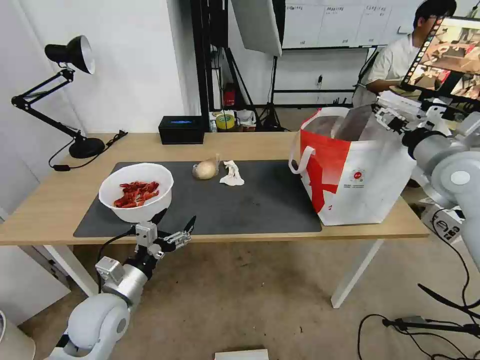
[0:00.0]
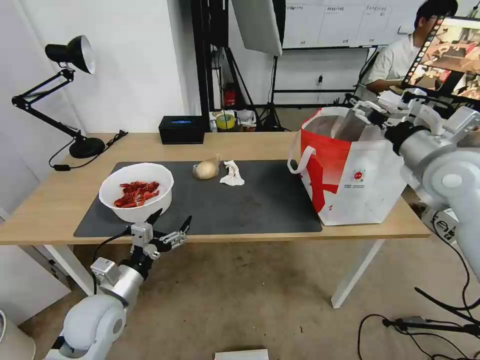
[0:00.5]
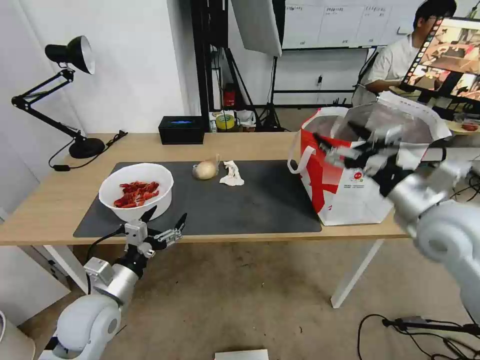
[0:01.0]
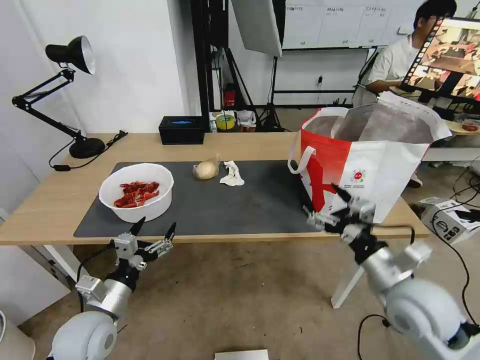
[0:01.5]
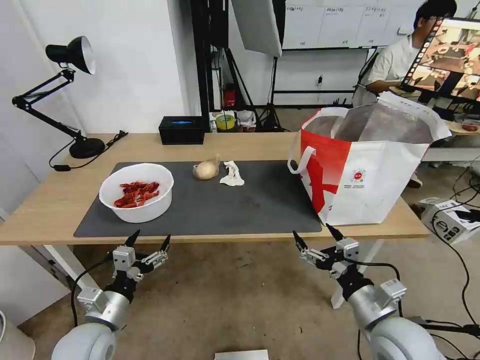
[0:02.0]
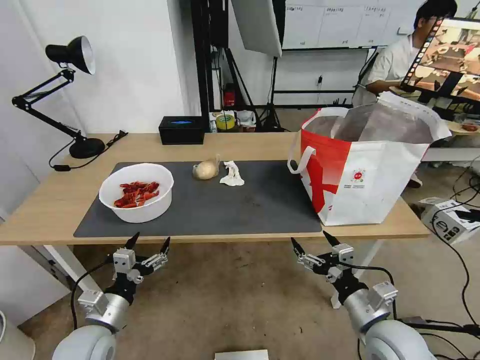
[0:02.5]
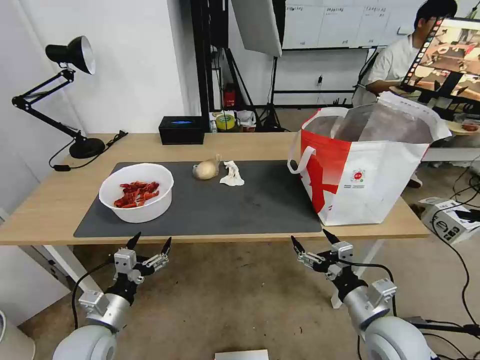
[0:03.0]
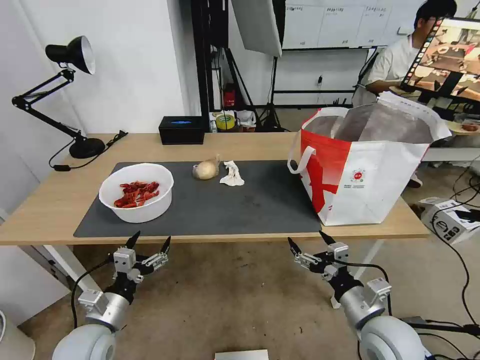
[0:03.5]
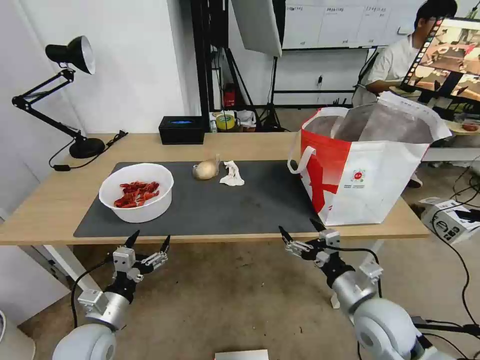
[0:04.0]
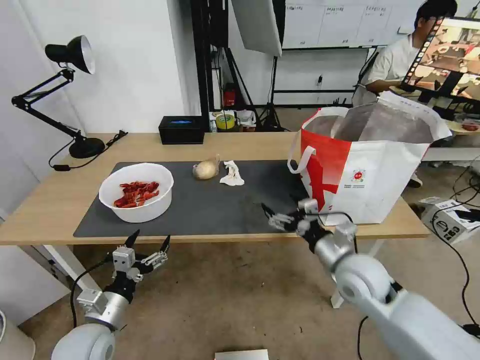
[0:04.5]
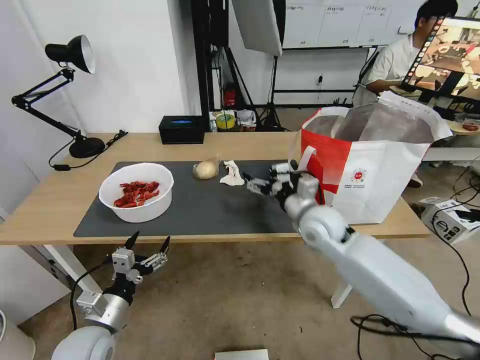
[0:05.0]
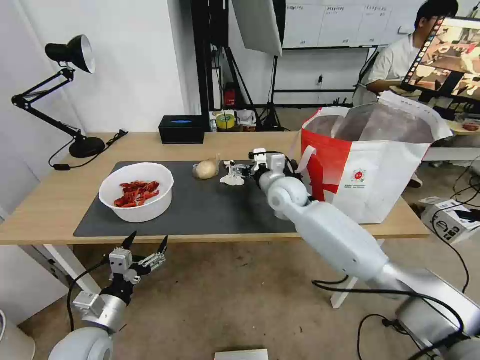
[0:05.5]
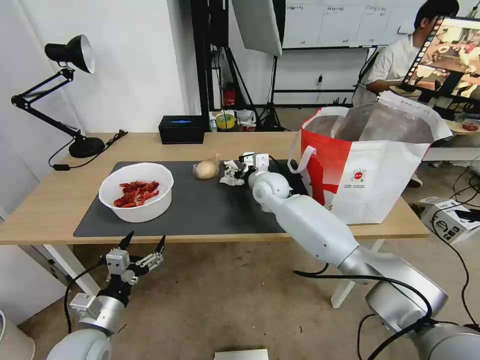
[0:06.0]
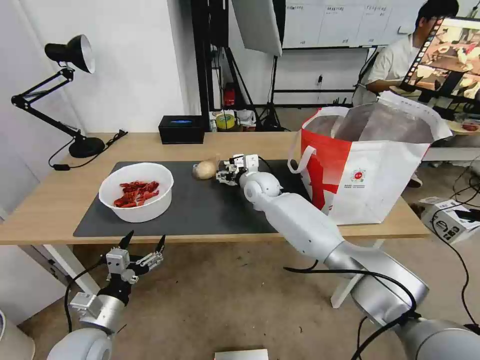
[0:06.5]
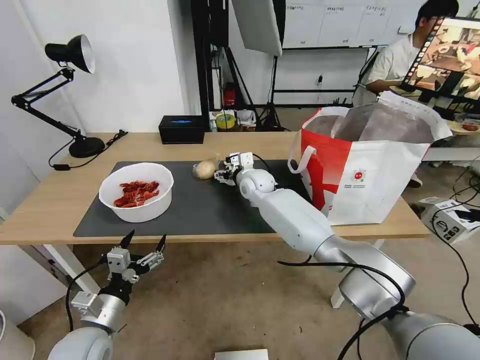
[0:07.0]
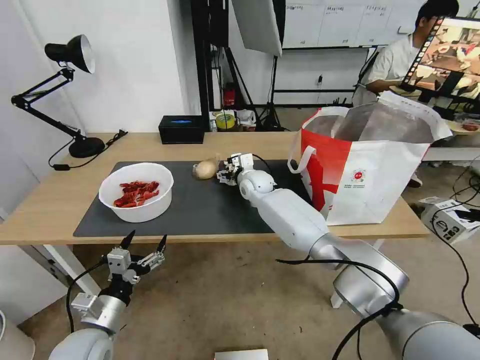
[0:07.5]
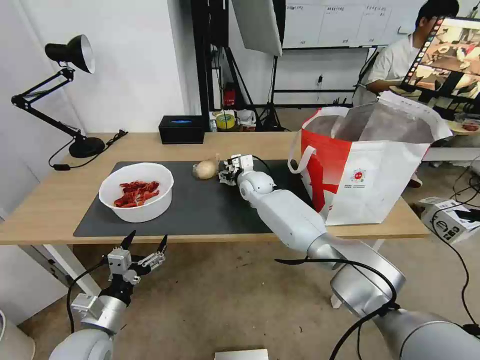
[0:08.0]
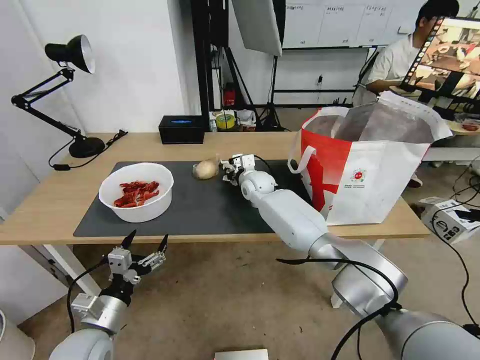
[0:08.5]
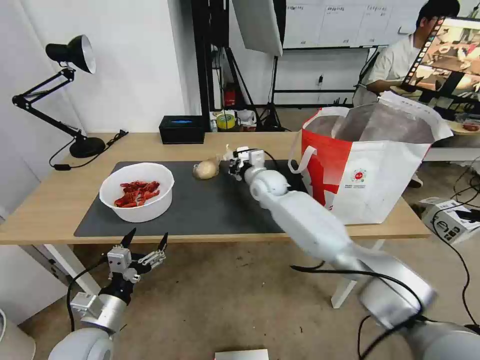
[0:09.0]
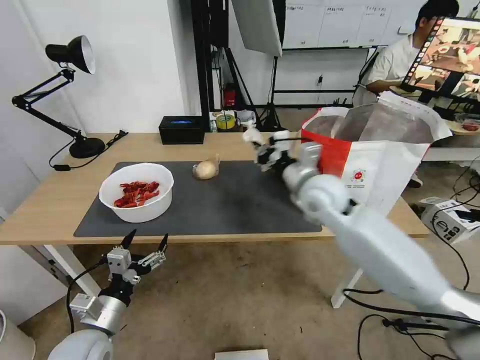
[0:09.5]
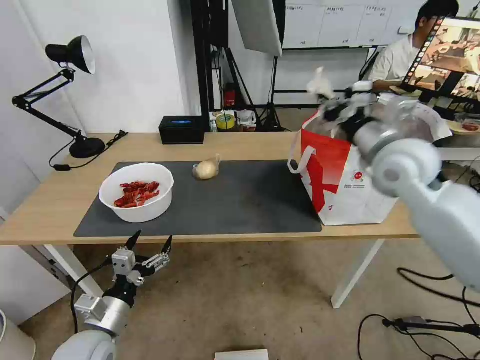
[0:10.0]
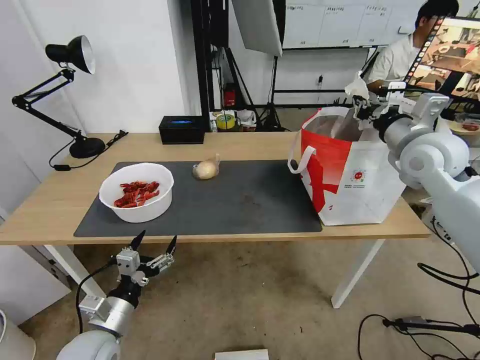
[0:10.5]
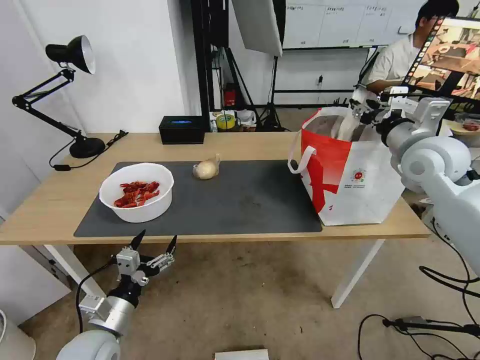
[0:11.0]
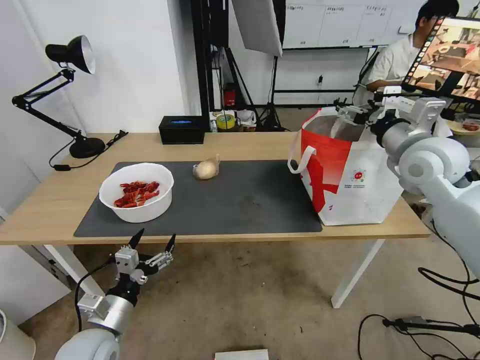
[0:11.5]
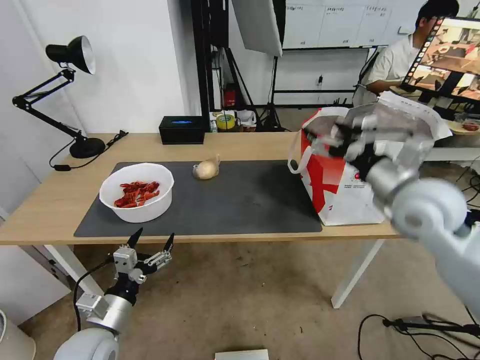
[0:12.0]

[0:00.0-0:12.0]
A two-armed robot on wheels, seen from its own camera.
Task of the whole recording: Pick up the trash from the table and place it into the takeout bag.
0:00.0 to 0:02.0: The right gripper travels downward, backward and to the left by roughly 35 cm. The left gripper changes place by approximately 5 cm.
0:02.0 to 0:04.0: The grippers make only small movements.
0:04.0 to 0:06.0: The right gripper heads forward and to the left, covering about 40 cm.
0:06.0 to 0:08.0: The right gripper changes place by some 5 cm.
0:08.0 to 0:10.0: The right gripper moves to the right, upward and backward, about 35 cm, and closes.
0:10.0 to 0:12.0: The right gripper is displaced backward by some 5 cm, and opens.

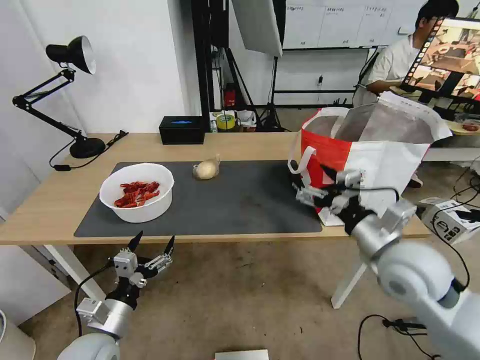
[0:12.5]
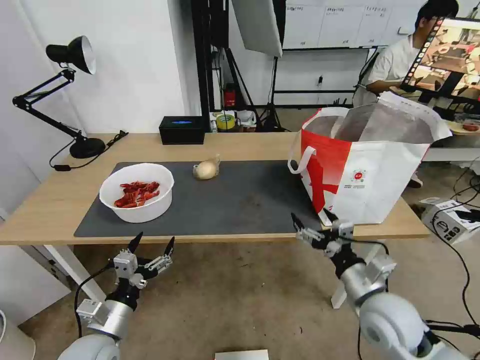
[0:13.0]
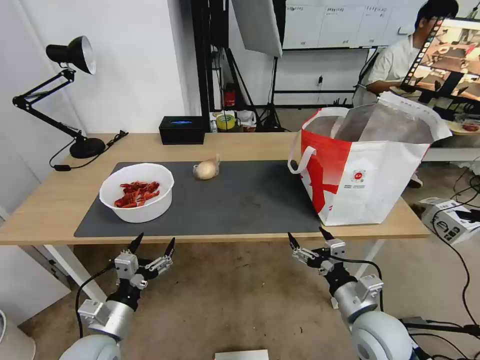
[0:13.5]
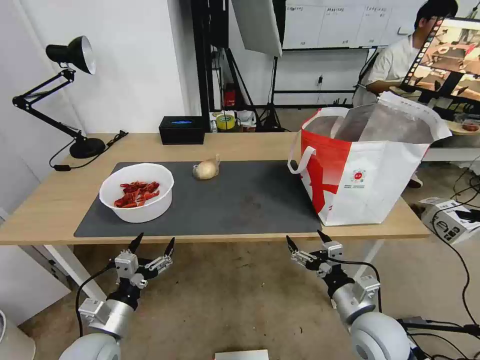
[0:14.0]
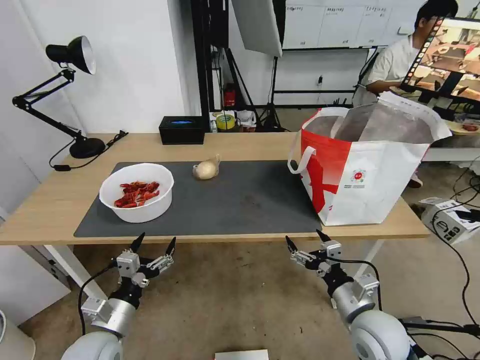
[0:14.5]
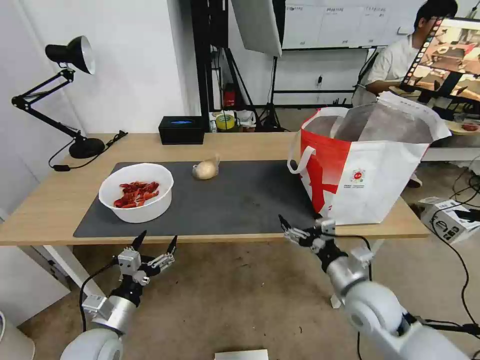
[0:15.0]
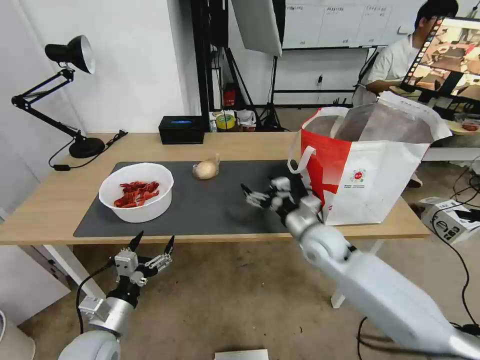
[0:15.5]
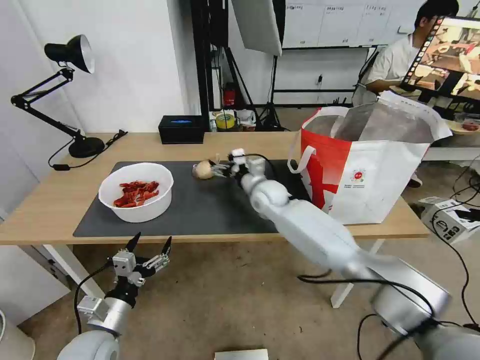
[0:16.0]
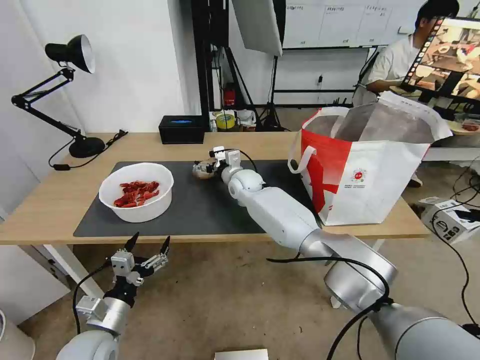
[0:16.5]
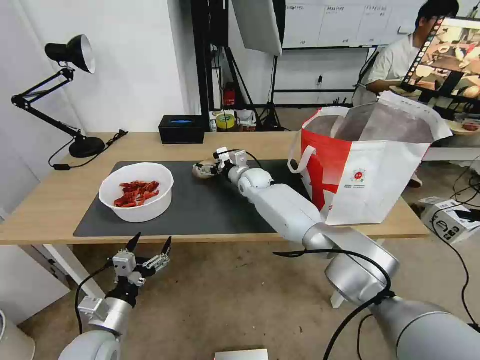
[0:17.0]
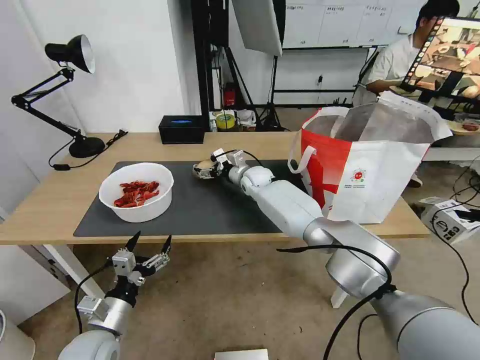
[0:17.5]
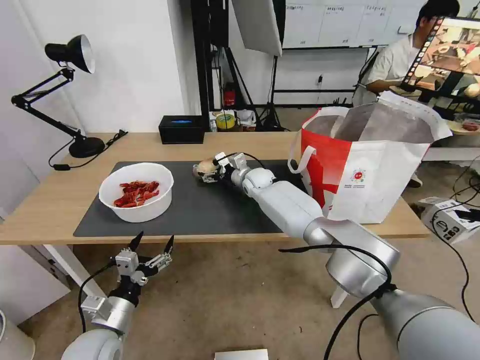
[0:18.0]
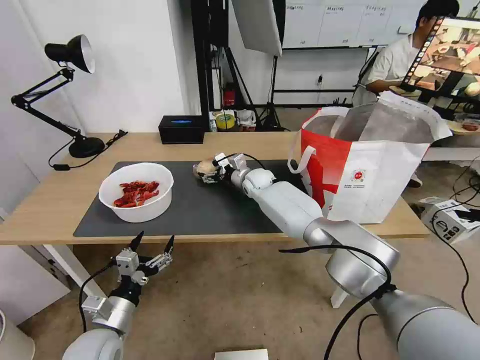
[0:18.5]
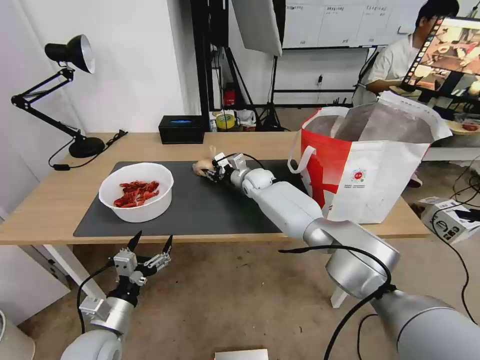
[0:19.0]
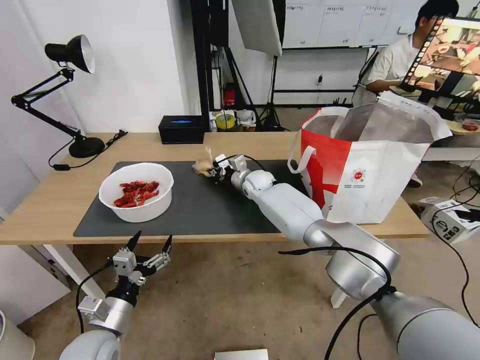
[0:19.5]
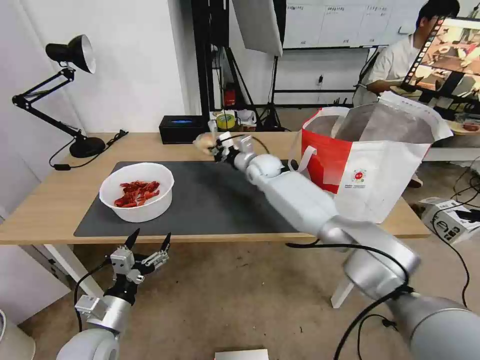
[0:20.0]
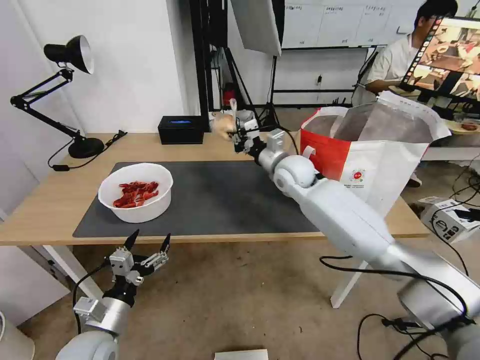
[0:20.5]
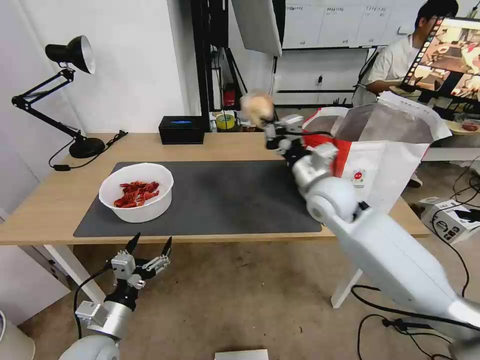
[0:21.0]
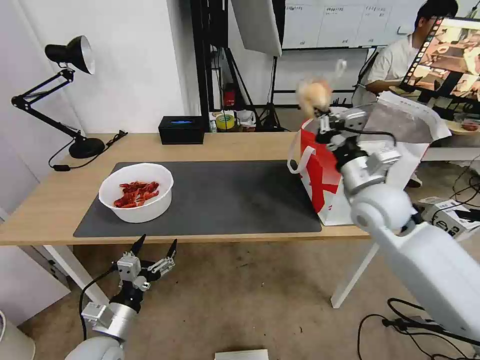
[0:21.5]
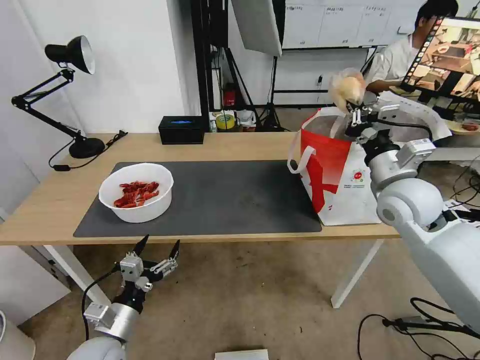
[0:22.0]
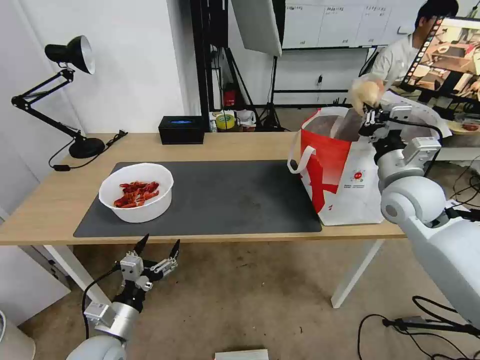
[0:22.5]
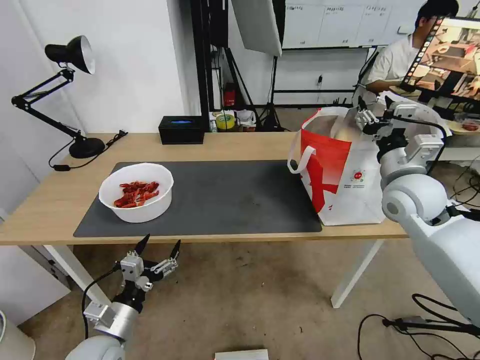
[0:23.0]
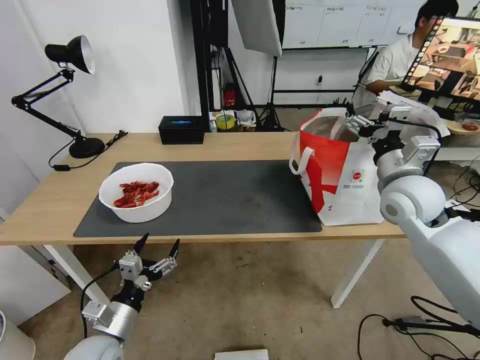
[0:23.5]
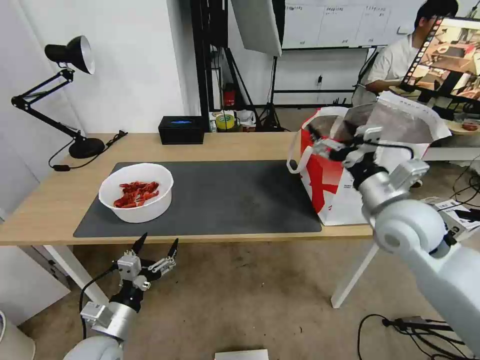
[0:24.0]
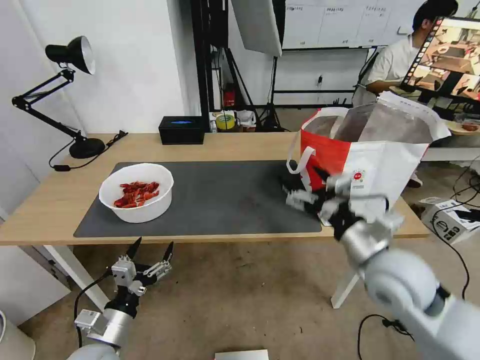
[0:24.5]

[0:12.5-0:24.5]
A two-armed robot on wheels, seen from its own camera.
Task of the whole recording: Pick up the trash from the table and place it into the takeout bag.
0:12.5 to 0:14.5: The right gripper goes approximately 15 cm downward and backward.
0:14.5 to 0:16.5: The right gripper heads forward and to the left, covering approximately 40 cm.
0:16.5 to 0:18.5: The right gripper changes place by about 5 cm.
0:18.5 to 0:20.5: The right gripper moves upward, backward and to the right, roughly 15 cm, and closes.
0:20.5 to 0:22.5: The right gripper travels to the right and backward by some 25 cm.
0:22.5 to 0:24.5: The right gripper moves backward and to the left, approximately 15 cm, and opens its fingers.

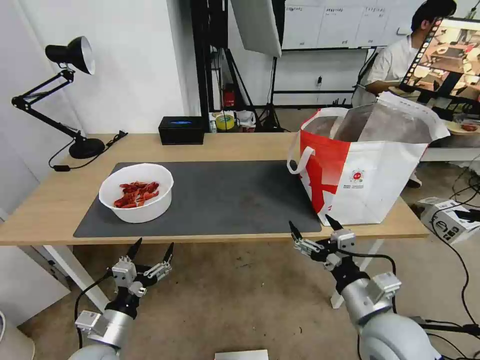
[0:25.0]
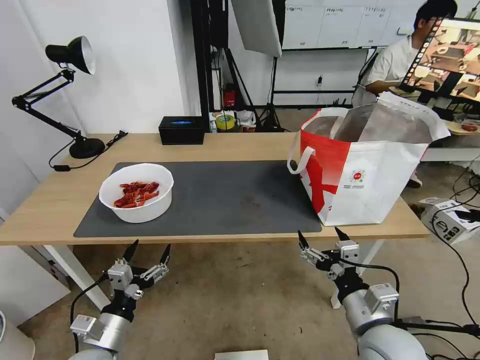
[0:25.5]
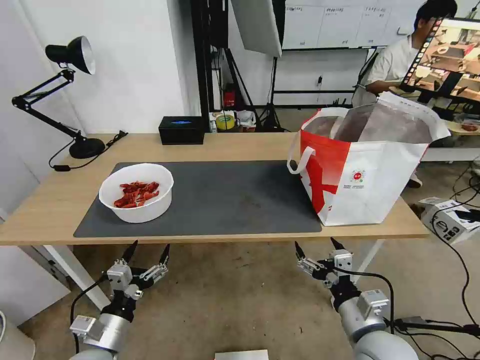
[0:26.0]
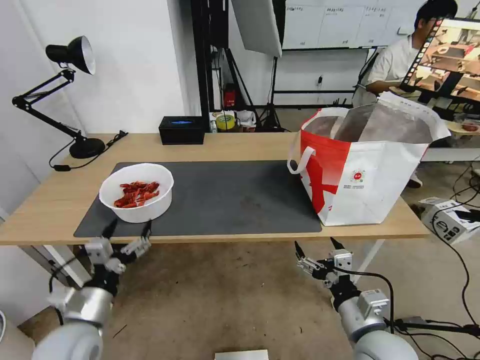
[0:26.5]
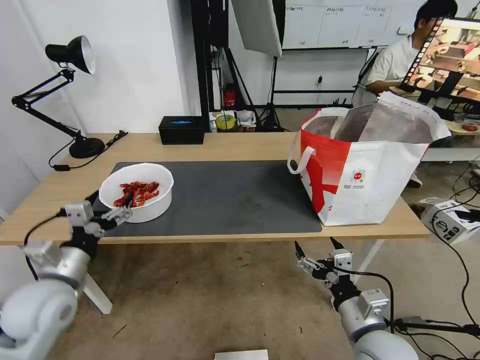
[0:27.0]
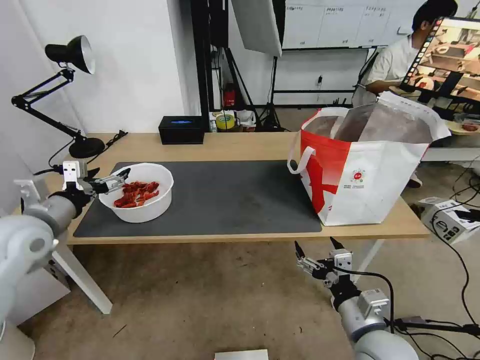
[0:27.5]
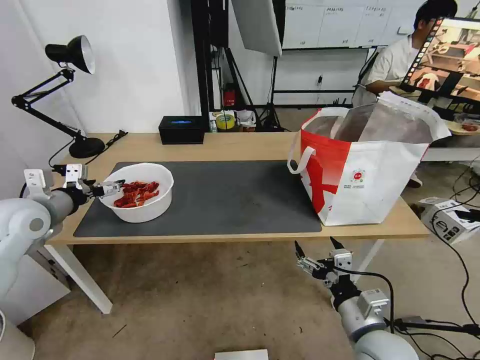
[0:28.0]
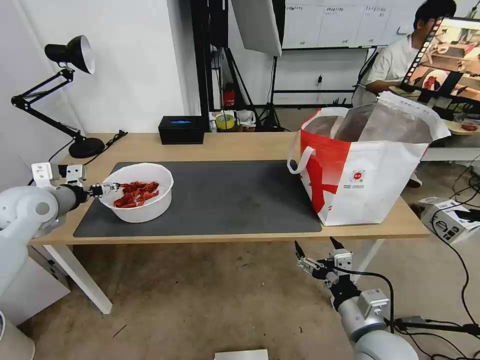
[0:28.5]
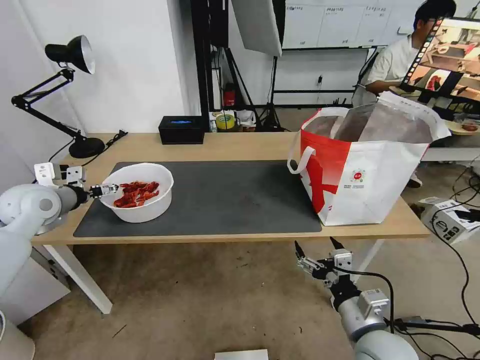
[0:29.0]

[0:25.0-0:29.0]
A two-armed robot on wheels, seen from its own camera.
Task of the whole recording: Pick up the trash from the table and place it into the takeout bag.
0:25.0 to 0:27.0: The left gripper is displaced upward, forward and to the left by about 15 cm.
0:27.0 to 0:29.0: The left gripper goes roughly 20 cm forward, to the left and upward.
